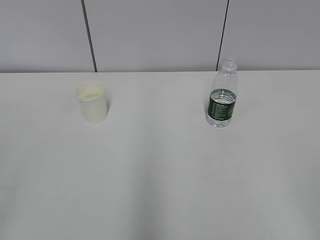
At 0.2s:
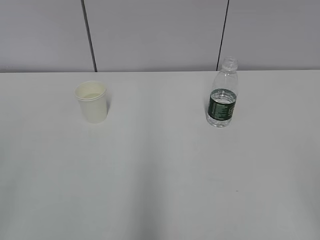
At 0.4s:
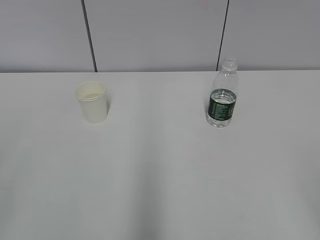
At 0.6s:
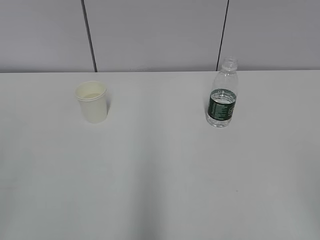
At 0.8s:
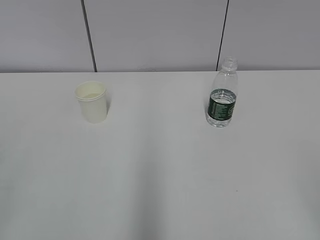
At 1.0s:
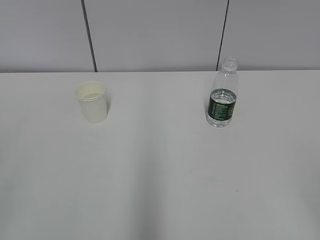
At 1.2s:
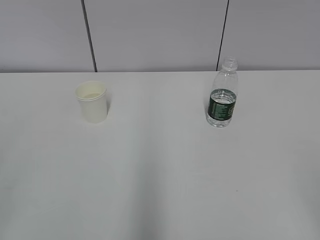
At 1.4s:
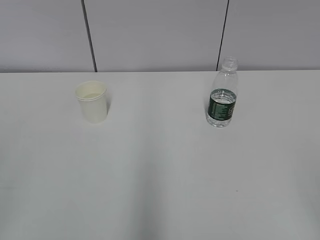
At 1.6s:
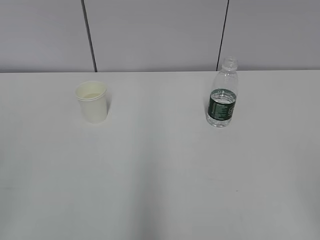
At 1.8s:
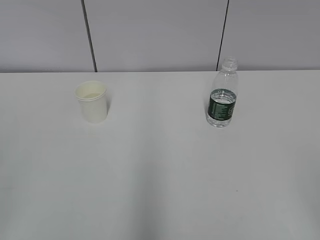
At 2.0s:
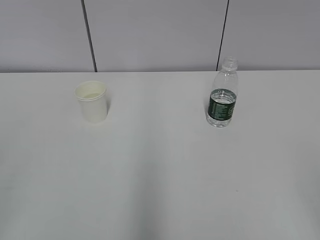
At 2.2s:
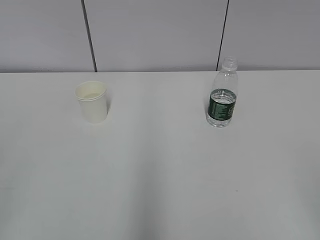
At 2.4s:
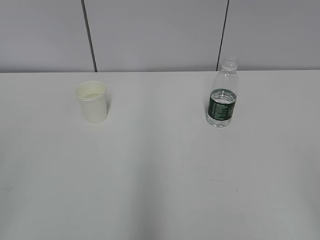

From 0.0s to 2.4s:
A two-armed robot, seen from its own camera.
From 0.0s to 2.4s: Neither gripper changes place.

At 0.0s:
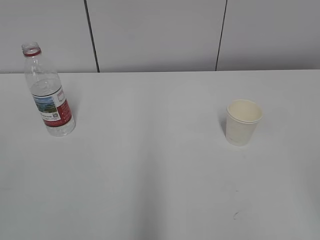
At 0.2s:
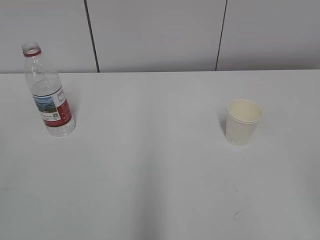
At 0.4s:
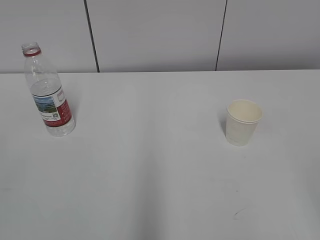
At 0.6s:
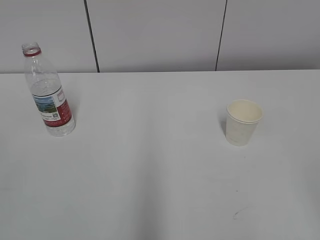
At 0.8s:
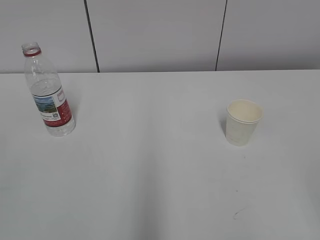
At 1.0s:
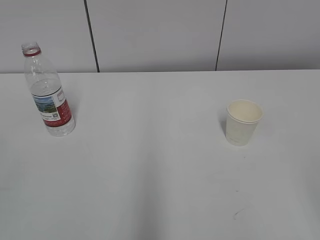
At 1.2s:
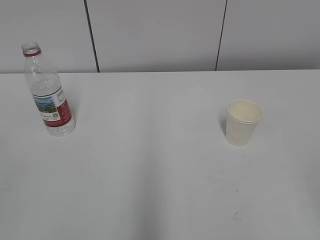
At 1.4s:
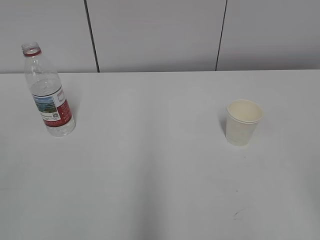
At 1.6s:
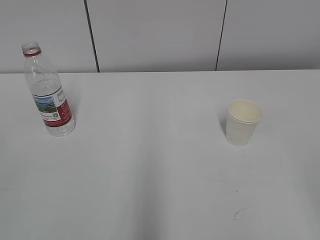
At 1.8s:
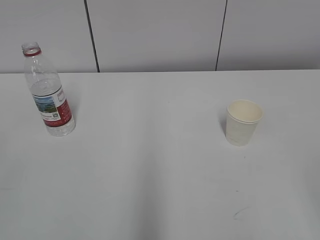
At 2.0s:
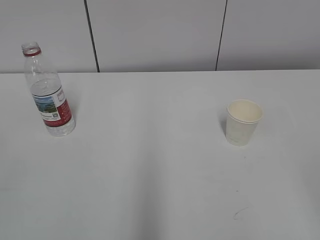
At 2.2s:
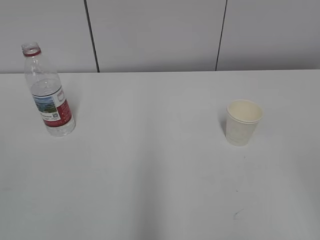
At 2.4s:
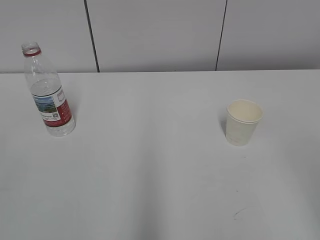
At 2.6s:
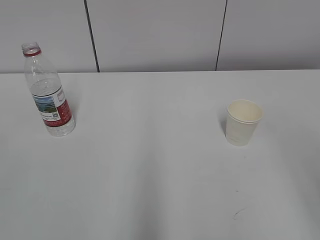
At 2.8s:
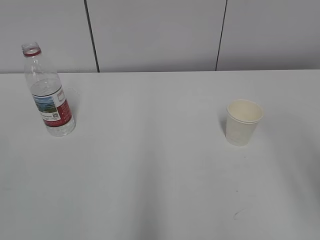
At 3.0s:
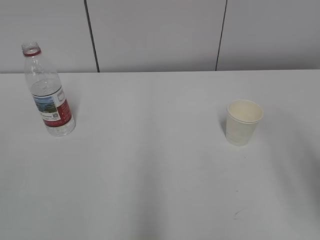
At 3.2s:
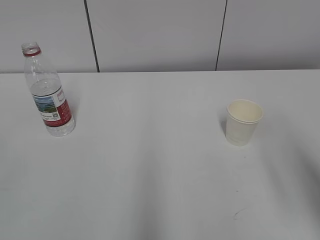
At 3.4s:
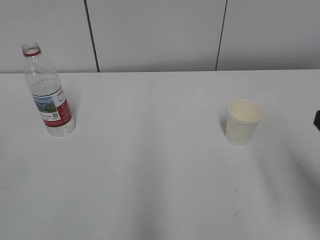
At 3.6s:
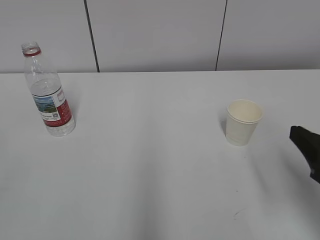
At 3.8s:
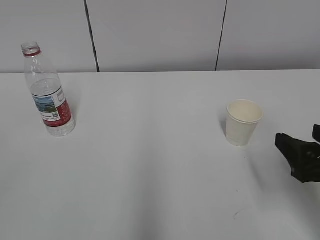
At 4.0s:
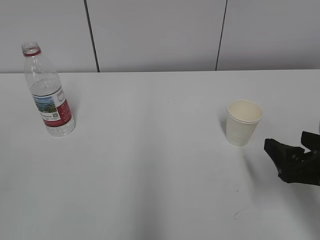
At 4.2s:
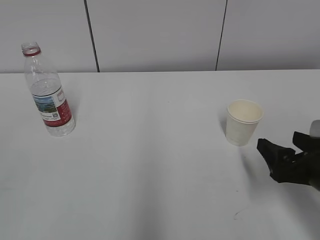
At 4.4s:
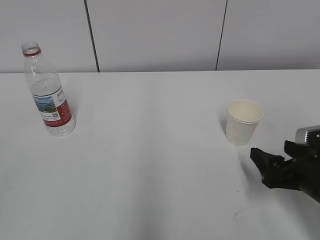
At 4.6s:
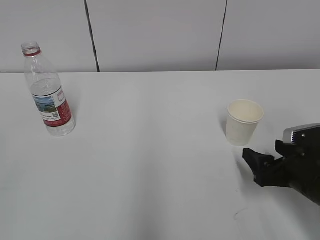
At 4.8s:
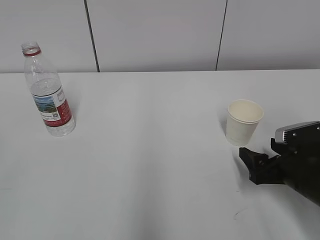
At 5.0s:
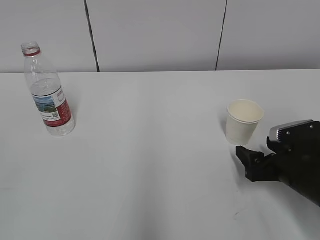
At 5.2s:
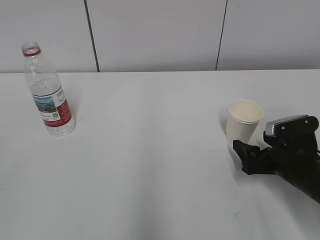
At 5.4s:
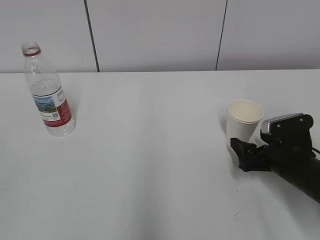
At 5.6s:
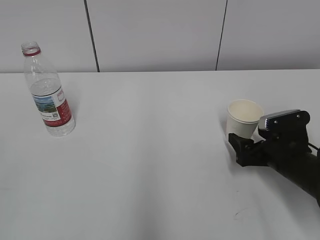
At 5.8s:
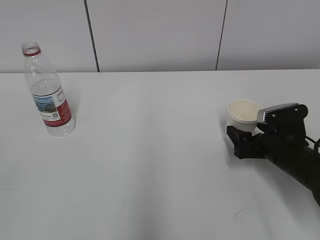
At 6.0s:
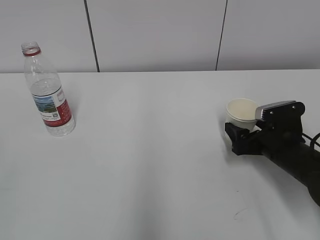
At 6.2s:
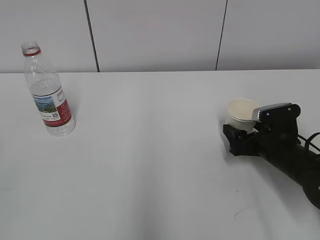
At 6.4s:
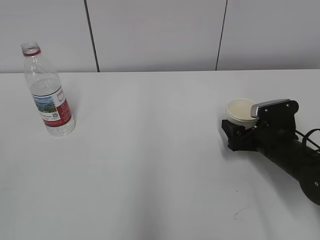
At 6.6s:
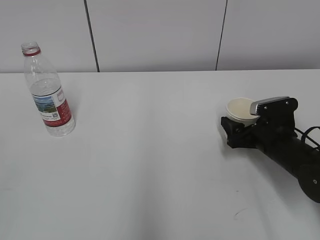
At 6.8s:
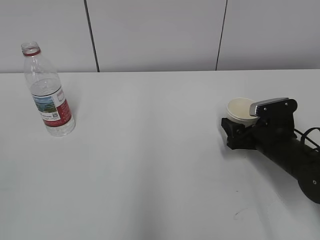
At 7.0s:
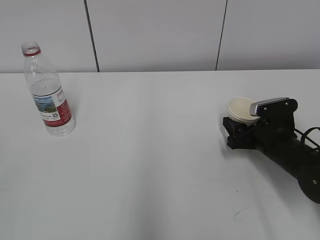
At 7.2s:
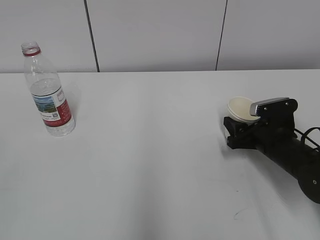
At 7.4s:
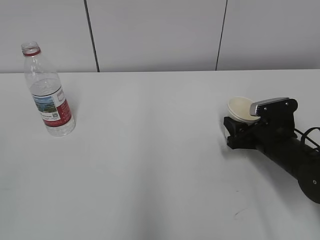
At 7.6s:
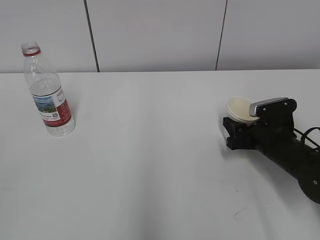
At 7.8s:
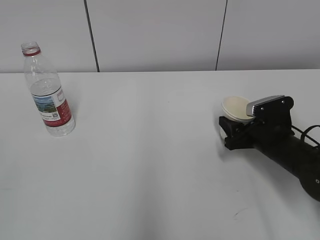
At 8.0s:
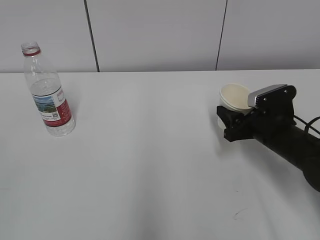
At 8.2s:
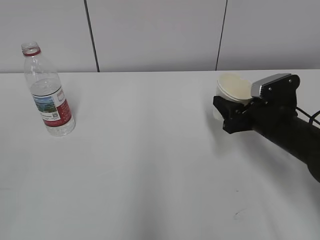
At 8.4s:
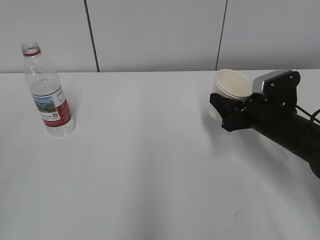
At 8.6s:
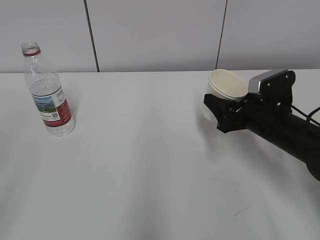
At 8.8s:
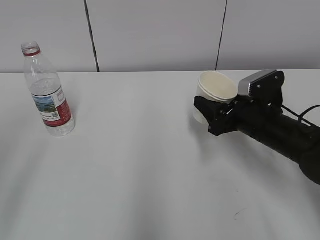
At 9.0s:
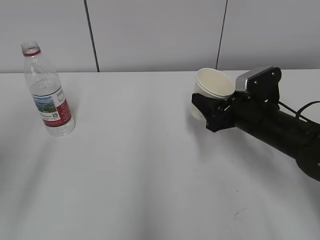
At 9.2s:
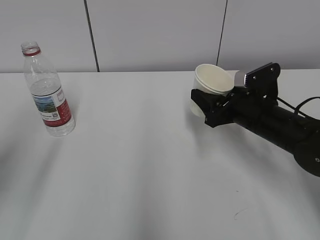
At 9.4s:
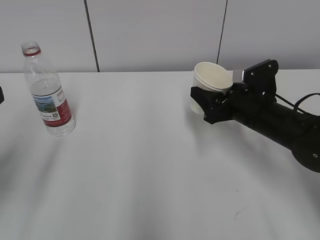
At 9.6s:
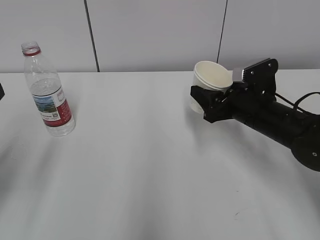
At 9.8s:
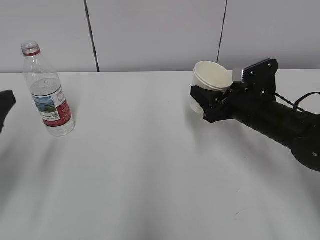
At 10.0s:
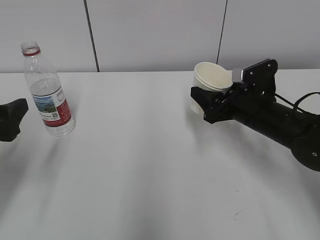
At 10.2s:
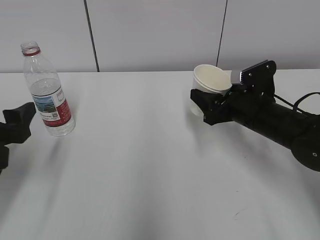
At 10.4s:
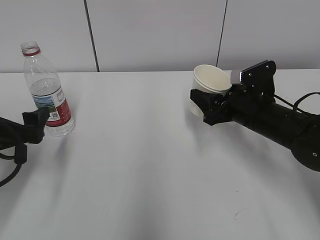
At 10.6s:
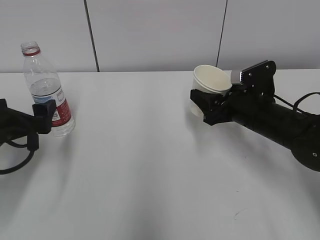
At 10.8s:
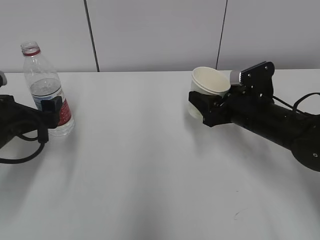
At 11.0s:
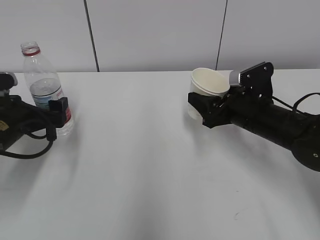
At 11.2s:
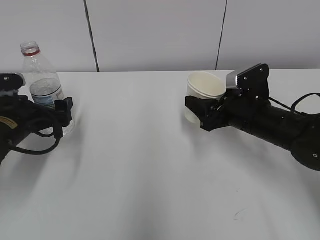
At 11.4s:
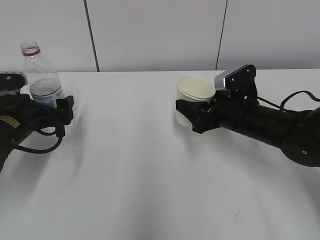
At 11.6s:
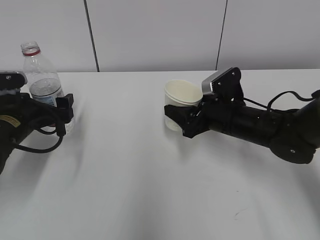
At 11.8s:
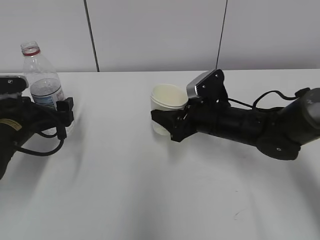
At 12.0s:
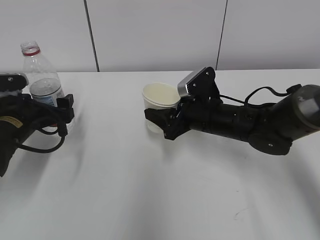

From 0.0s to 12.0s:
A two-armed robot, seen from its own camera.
Step, from 0.0s to 6.4s: Grab the paper cup with the right hand.
From 3.0s to 4.4s: The right gripper heads downward and forward, covering about 25 cm, and opens its fingers.
From 4.4s to 6.0s: The right gripper travels forward by roughly 10 cm.
From 6.0s to 7.6s: The right gripper closes.
From 7.6s to 9.0s: The left gripper goes roughly 15 cm forward. Meanwhile the right gripper is displaced upward by some 5 cm.
From 9.0s to 10.4s: The left gripper heads downward and forward, covering approximately 20 cm.
From 10.4s to 12.0s: The left gripper moves forward, some 10 cm. The right gripper heads to the left, covering approximately 5 cm.

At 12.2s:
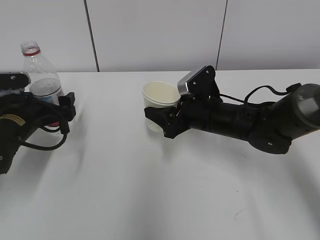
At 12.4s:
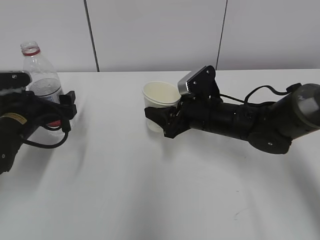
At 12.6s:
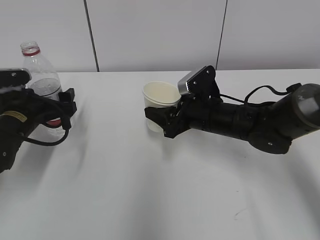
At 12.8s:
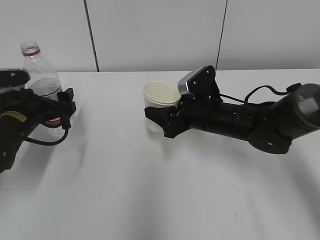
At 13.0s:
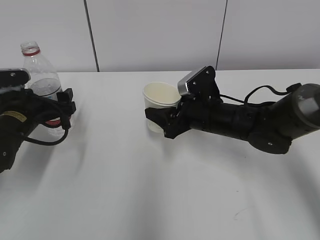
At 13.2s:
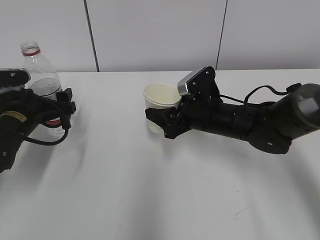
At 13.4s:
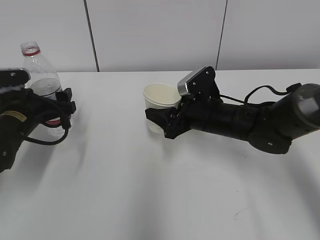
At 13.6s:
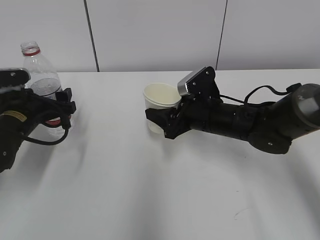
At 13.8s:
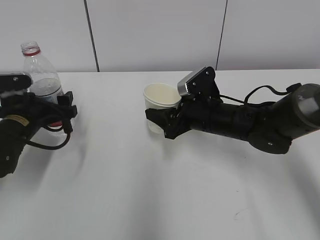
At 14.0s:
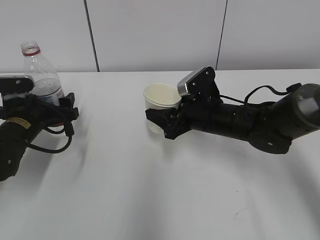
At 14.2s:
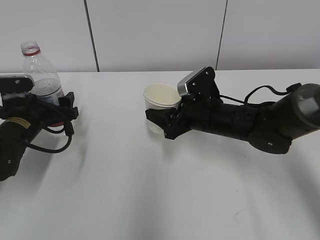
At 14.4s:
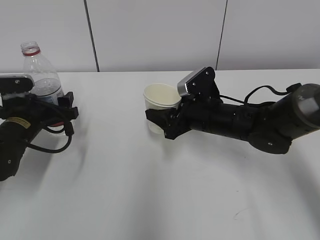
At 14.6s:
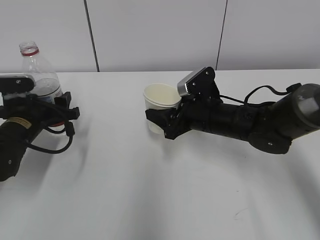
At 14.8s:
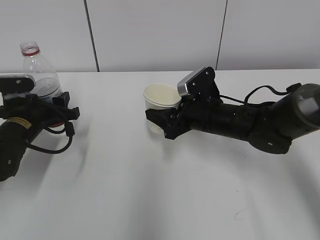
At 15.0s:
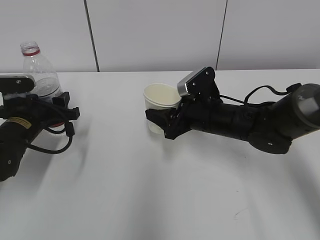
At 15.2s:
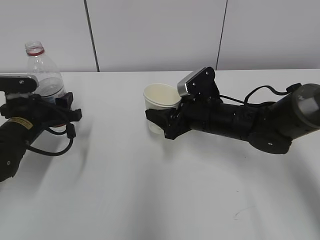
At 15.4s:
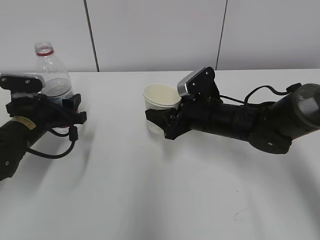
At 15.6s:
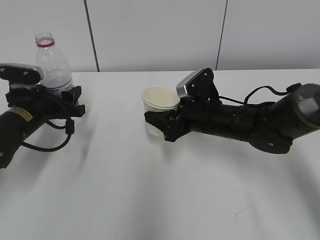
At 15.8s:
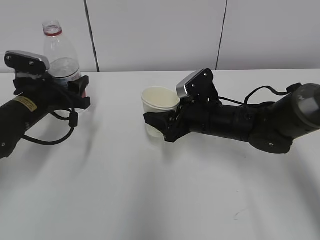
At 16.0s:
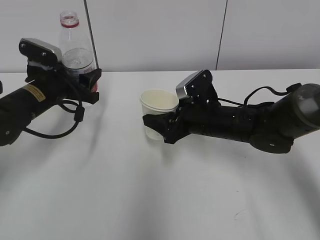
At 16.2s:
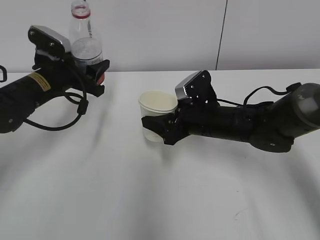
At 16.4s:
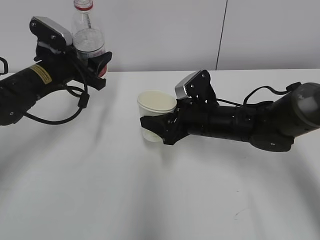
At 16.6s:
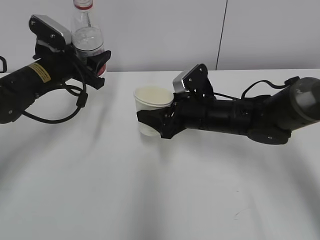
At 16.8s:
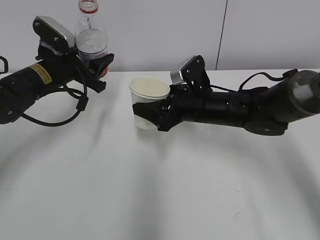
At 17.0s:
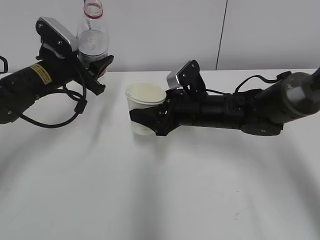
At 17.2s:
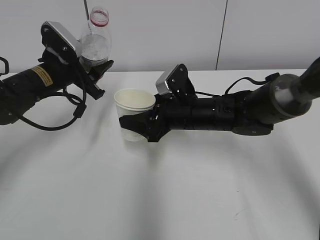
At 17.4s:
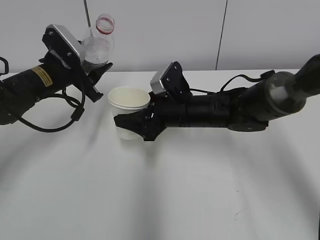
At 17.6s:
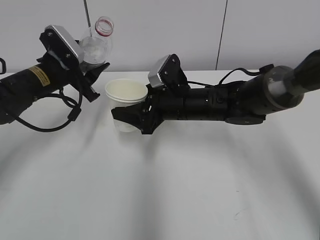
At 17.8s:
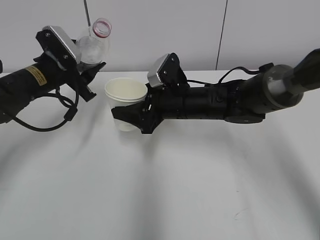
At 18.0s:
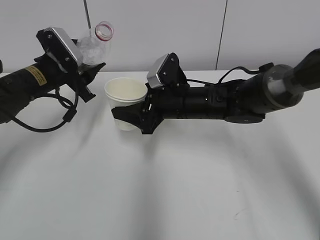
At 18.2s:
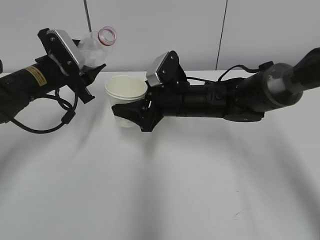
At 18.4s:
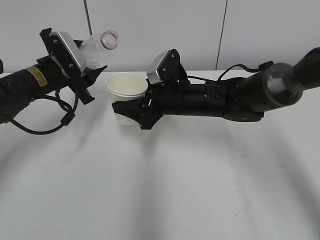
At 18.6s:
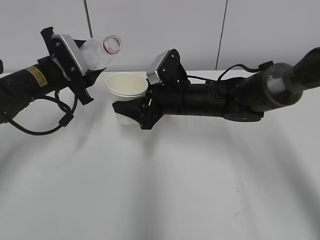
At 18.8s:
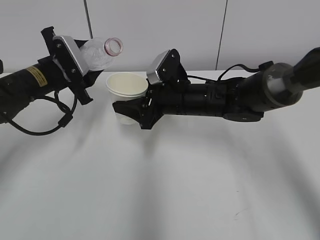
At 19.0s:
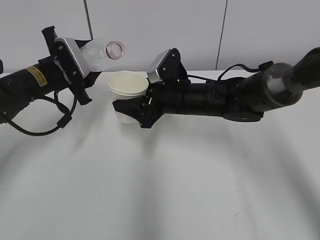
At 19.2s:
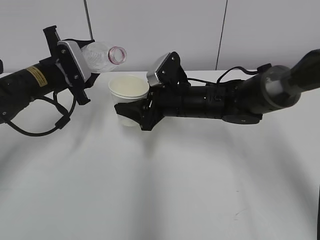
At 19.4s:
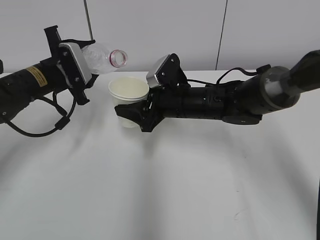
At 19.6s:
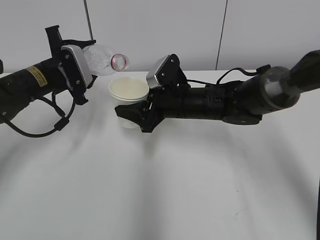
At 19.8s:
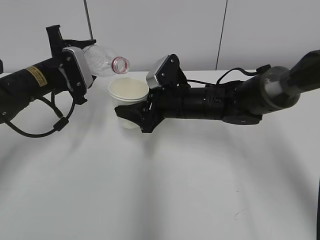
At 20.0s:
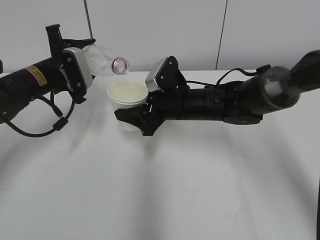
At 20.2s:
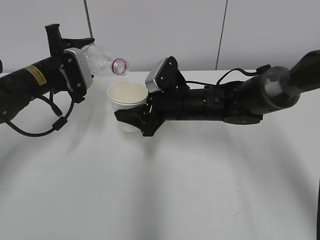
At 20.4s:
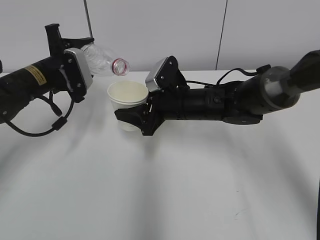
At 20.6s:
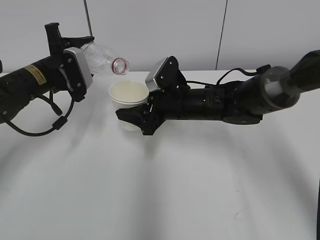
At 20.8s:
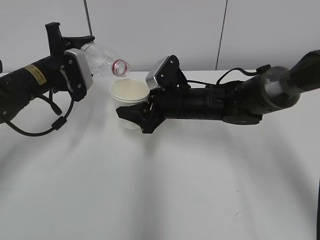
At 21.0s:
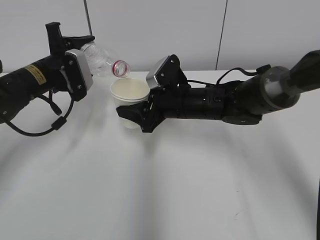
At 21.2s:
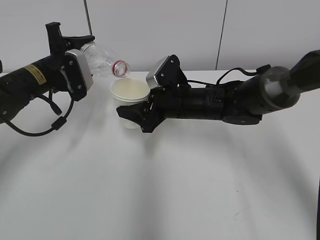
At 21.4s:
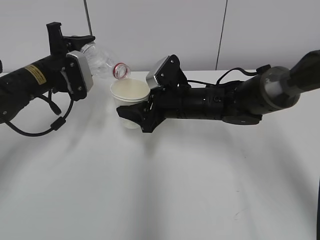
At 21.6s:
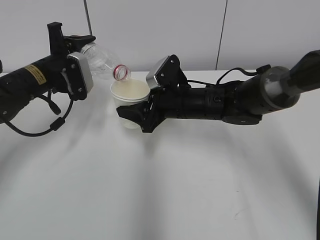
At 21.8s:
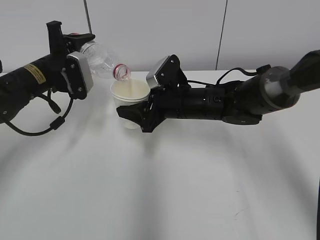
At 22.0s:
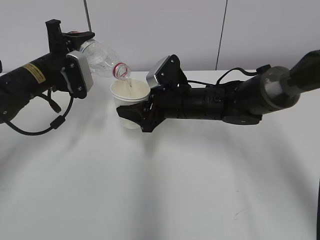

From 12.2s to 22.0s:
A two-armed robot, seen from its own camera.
Step, from 12.6s to 18.0s: Lift the paper cup with the right hand.
From 12.2s to 13.6s: The two grippers keep their place.
From 13.6s to 15.0s: The left gripper closes.
From 15.0s to 16.4s: The left gripper travels upward and forward by about 10 cm.
From 16.4s to 17.8s: The right gripper changes place by approximately 5 cm.
From 19.2s to 20.6s: The grippers make only small movements.
From 20.6s to 22.0s: There are only small adjustments of the grippers.
